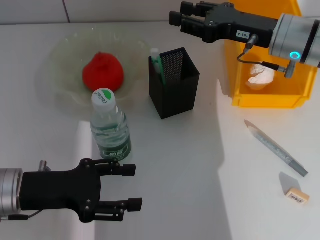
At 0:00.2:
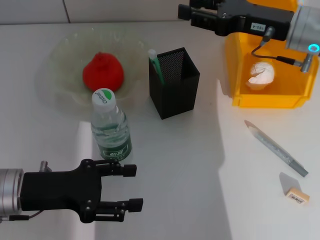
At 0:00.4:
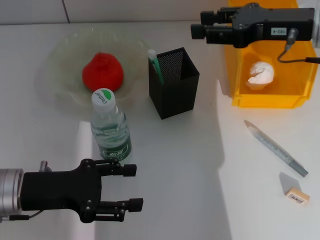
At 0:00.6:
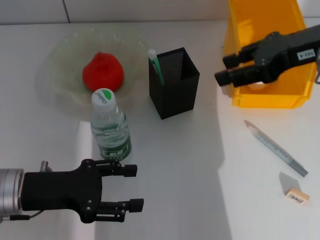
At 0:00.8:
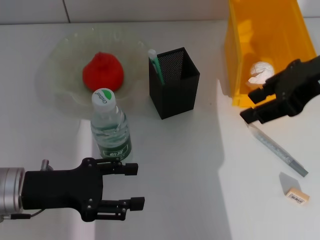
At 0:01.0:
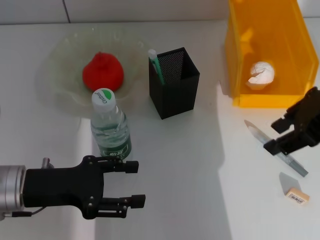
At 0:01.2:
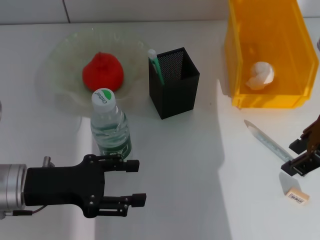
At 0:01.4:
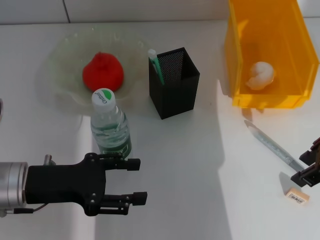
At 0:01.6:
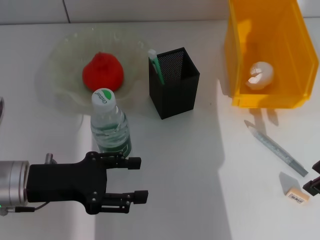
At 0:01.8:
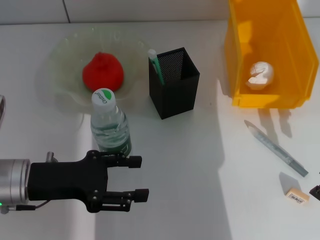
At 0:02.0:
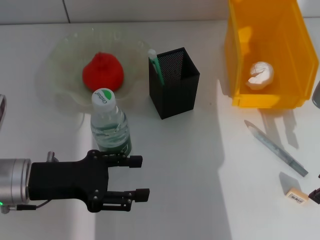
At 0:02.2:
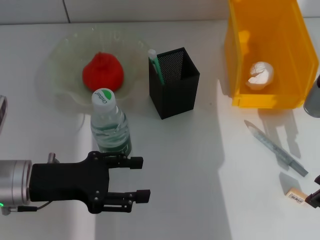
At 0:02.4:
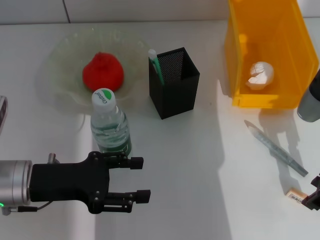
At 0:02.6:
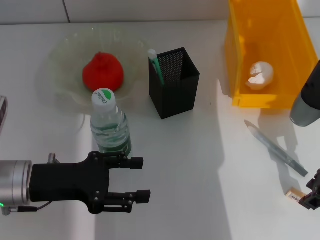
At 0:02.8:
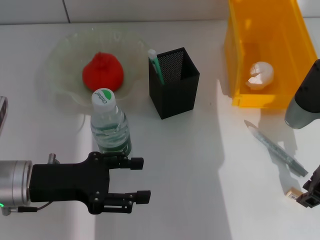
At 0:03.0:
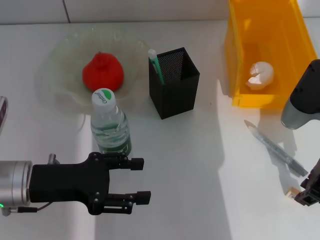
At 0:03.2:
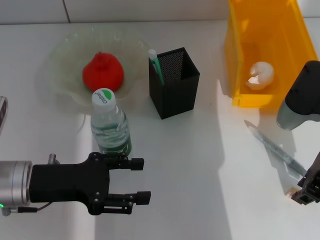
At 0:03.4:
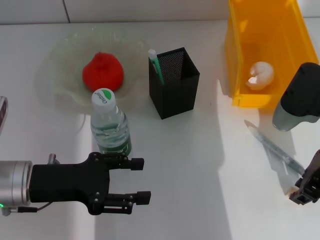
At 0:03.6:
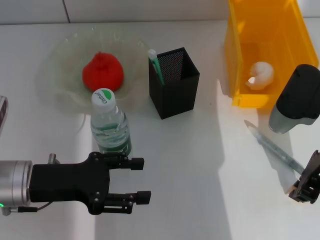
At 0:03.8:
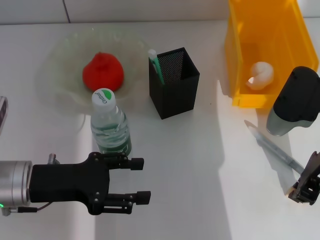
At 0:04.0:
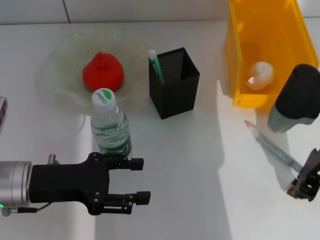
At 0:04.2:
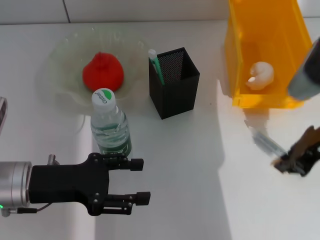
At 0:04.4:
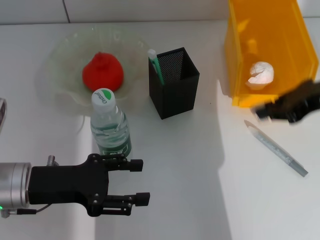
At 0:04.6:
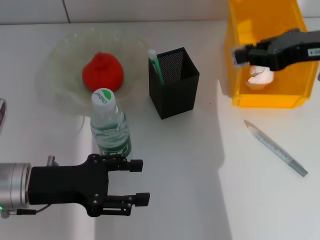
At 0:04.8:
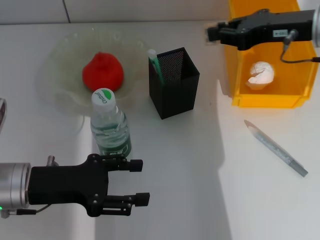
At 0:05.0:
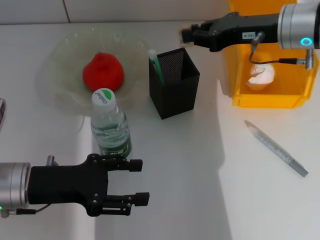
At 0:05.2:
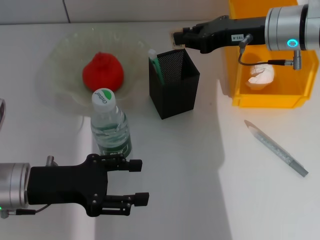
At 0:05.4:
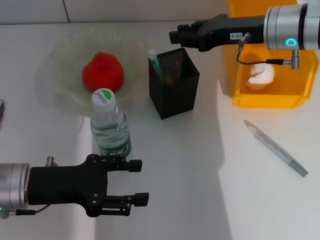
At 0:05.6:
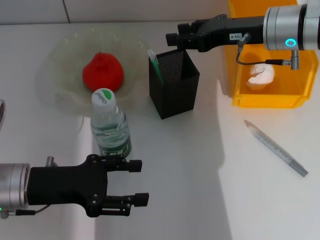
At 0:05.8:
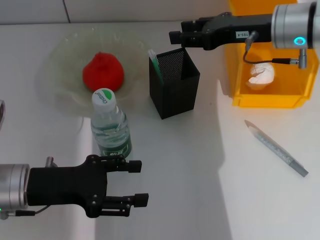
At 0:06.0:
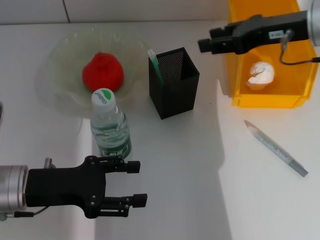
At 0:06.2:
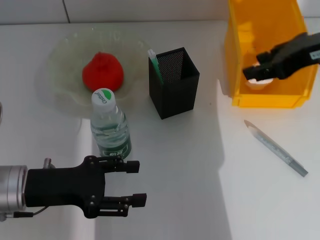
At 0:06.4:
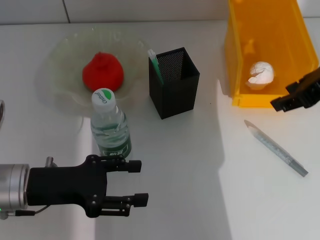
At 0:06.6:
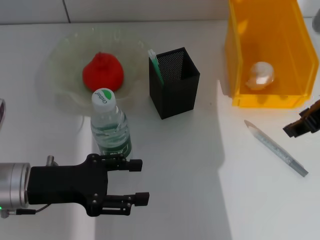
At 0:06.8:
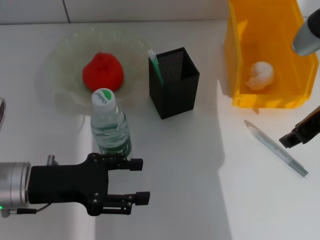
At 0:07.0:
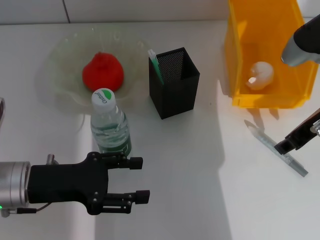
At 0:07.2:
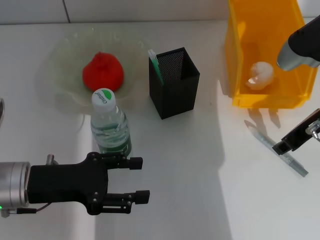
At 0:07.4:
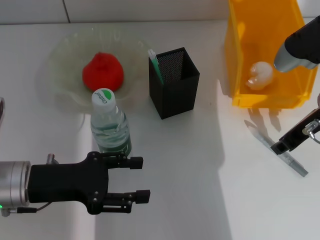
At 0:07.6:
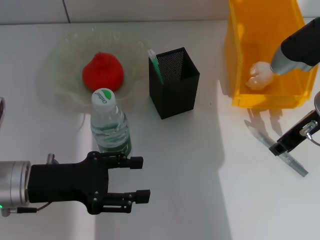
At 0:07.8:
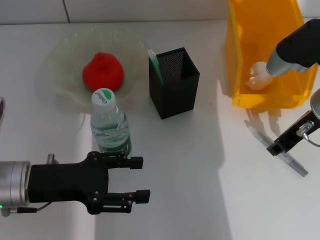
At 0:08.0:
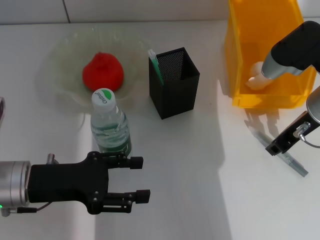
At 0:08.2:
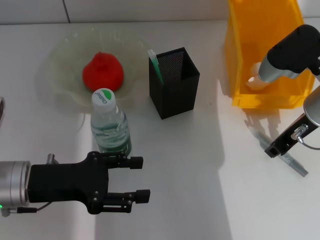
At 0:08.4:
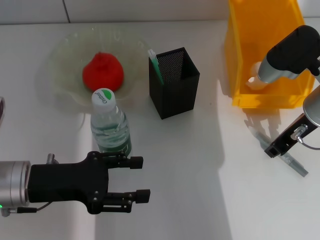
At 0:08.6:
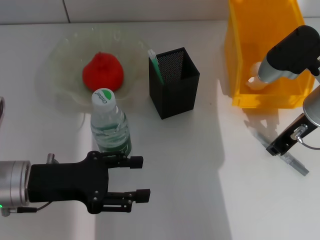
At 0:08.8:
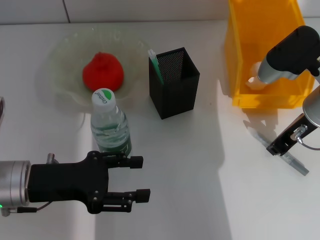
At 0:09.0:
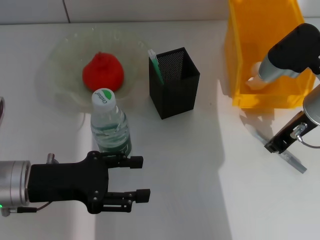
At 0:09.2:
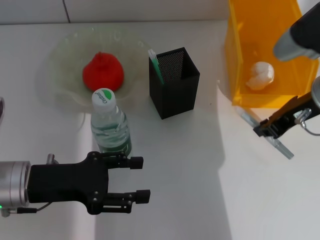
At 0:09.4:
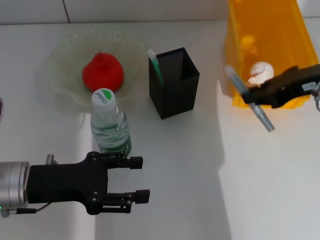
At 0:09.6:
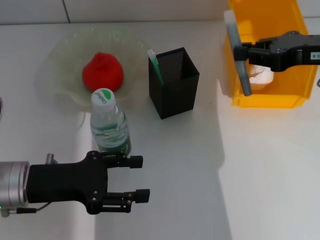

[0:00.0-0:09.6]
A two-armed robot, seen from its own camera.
Step, 0:00.4 to 0:03.6: Grab the eraser with the right hand.
Step, 0:03.8 to 0:05.6: Put the eraser into the pen holder with the right hand.
Step, 0:05.8 to 0:08.6: Grab the gray glue with the right hand.
0:00.0 to 0:01.6: The right gripper shifts some 15 cm backward, upward and to the right, and opens up.
0:01.6 to 0:03.2: The right gripper travels downward by about 5 cm.
0:03.2 to 0:04.8: The right gripper is displaced forward and upward by about 10 cm.
0:04.8 to 0:06.4: The right gripper goes roughly 5 cm backward, and opens up.
0:06.4 to 0:08.0: The right gripper heads downward, covering roughly 10 cm.
0:08.0 to 0:09.6: The right gripper travels upward by approximately 5 cm.

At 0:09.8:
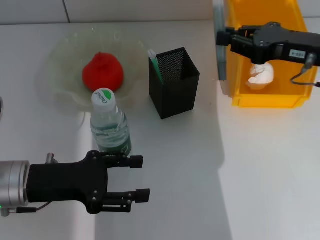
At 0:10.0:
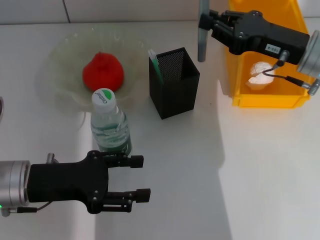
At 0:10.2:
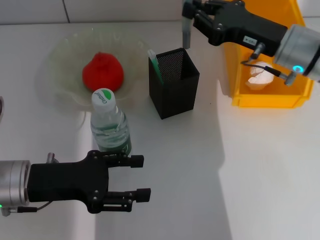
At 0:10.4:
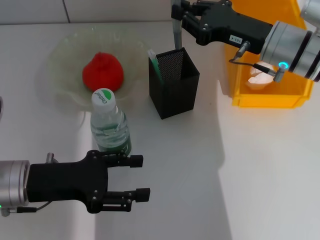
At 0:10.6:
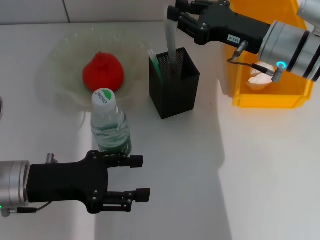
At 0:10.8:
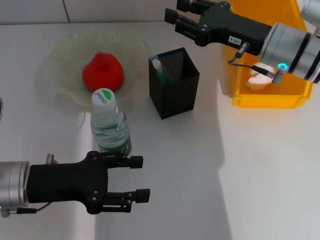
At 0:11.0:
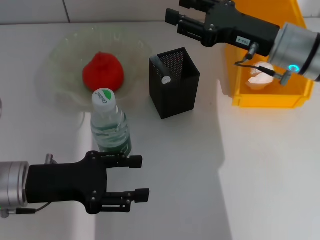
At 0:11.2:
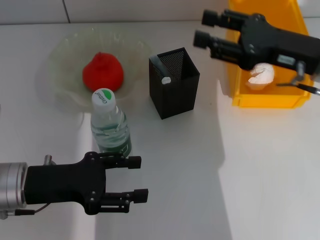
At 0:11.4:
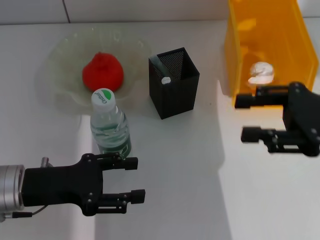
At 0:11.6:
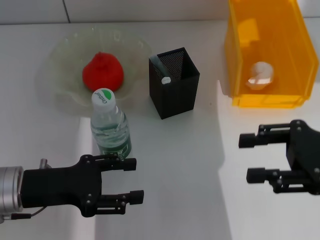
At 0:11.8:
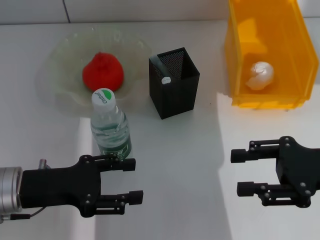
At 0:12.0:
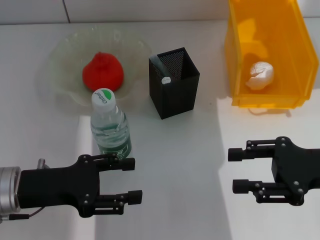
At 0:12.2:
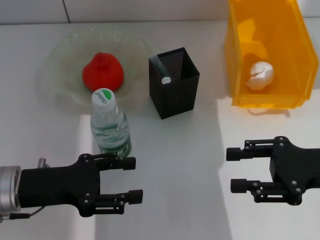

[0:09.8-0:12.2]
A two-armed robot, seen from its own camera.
Step, 0:09.8 to 0:11.0: Place the gray glue into the pen holder with the right hand.
0:09.8 to 0:11.0: The right gripper heads to the left, covering roughly 5 cm, and opens up.
0:11.0 to 0:12.2: The right gripper moves backward and to the right, about 15 cm.

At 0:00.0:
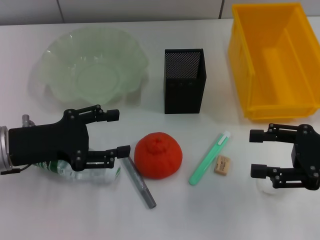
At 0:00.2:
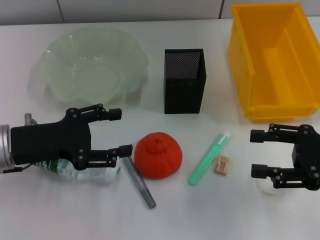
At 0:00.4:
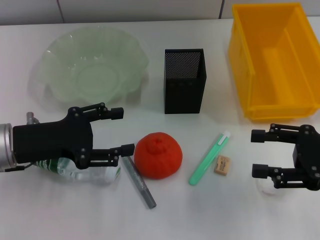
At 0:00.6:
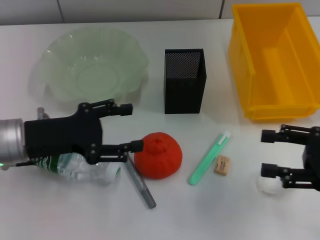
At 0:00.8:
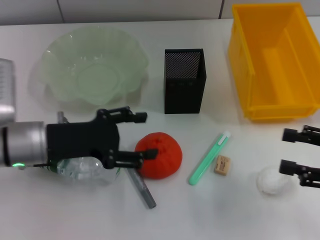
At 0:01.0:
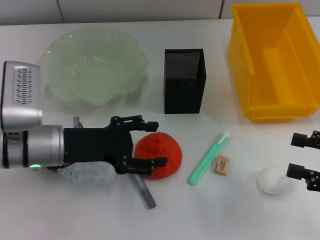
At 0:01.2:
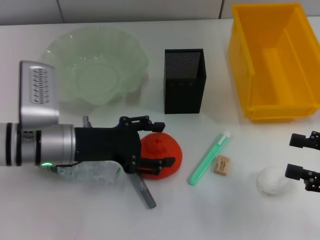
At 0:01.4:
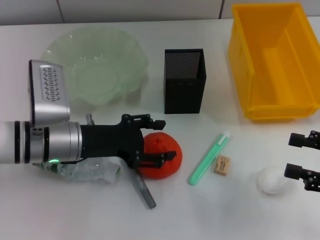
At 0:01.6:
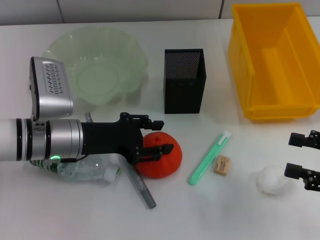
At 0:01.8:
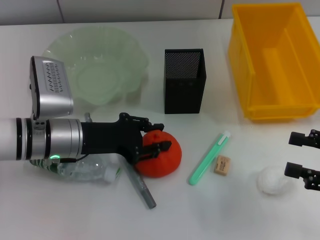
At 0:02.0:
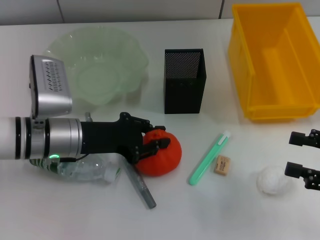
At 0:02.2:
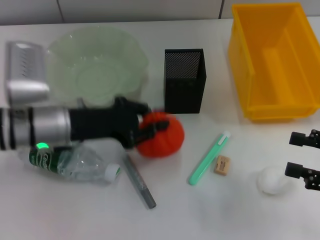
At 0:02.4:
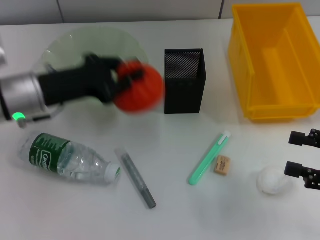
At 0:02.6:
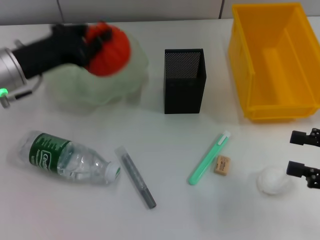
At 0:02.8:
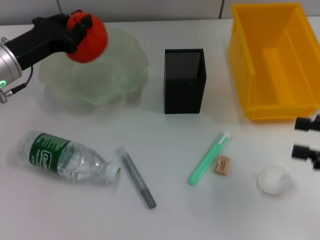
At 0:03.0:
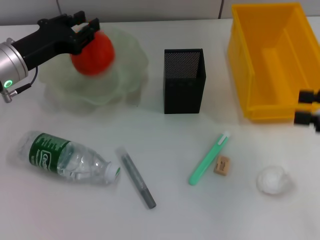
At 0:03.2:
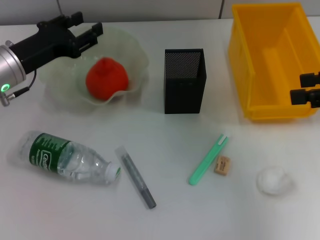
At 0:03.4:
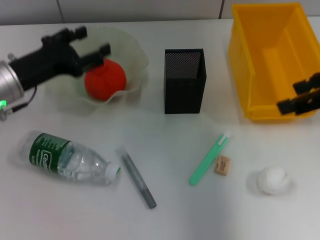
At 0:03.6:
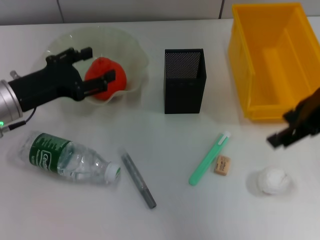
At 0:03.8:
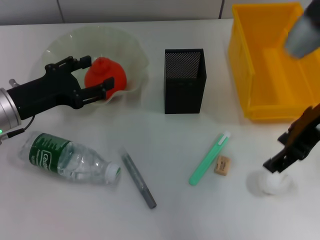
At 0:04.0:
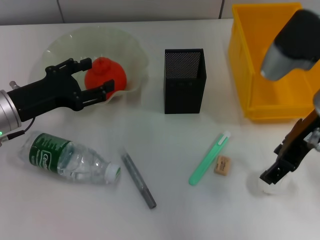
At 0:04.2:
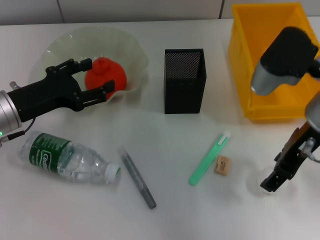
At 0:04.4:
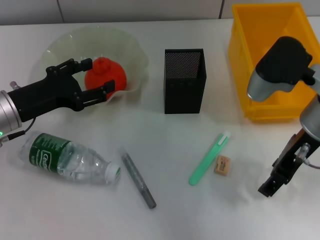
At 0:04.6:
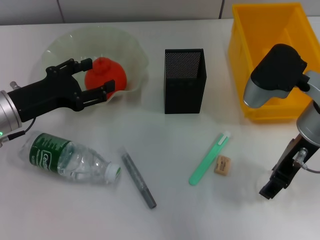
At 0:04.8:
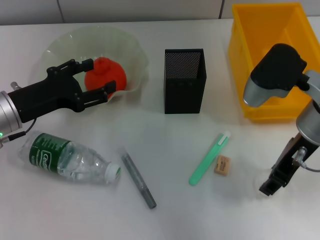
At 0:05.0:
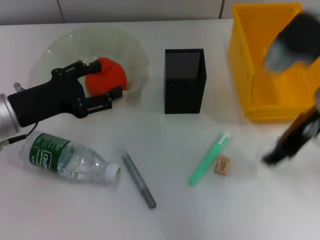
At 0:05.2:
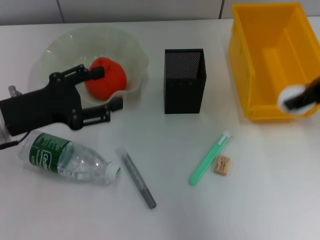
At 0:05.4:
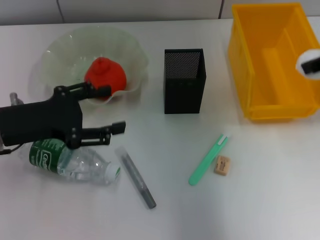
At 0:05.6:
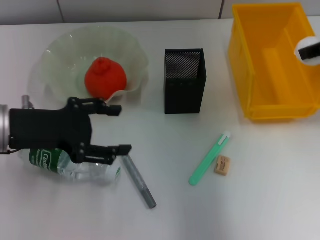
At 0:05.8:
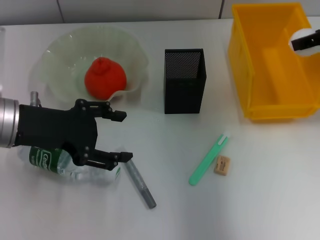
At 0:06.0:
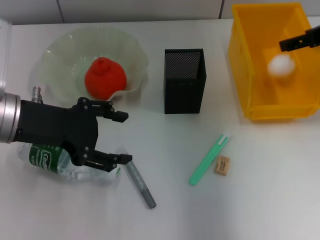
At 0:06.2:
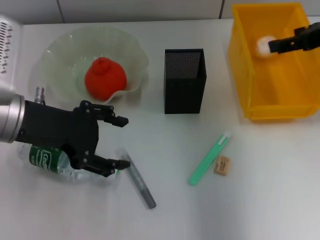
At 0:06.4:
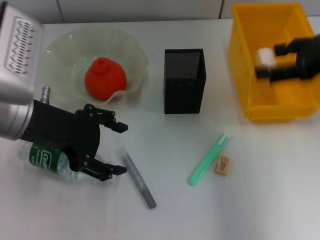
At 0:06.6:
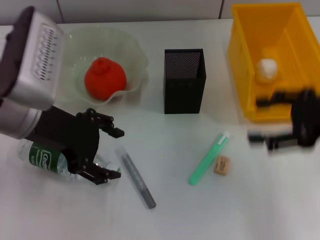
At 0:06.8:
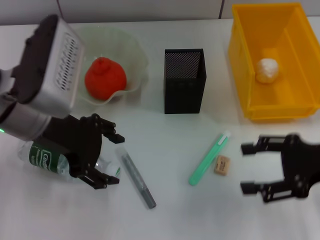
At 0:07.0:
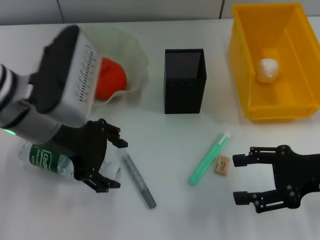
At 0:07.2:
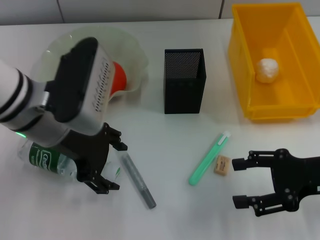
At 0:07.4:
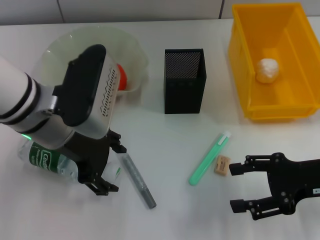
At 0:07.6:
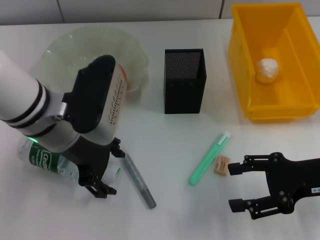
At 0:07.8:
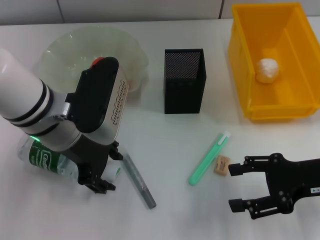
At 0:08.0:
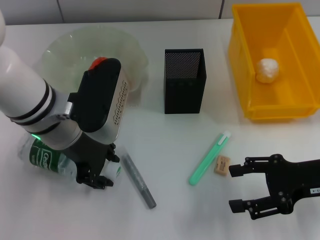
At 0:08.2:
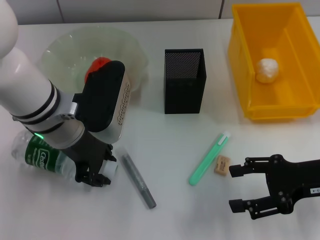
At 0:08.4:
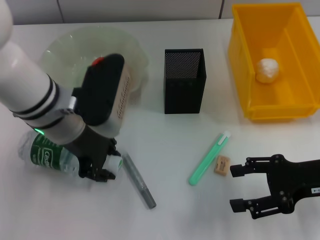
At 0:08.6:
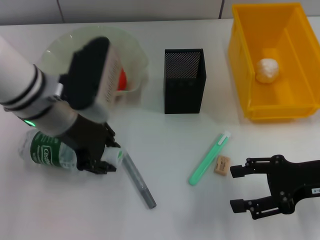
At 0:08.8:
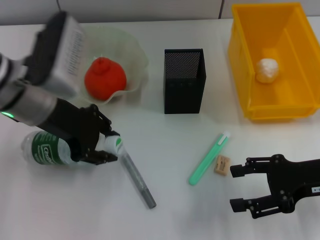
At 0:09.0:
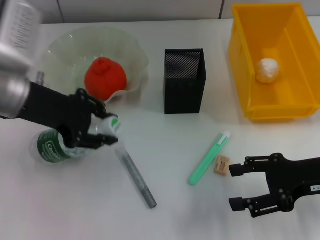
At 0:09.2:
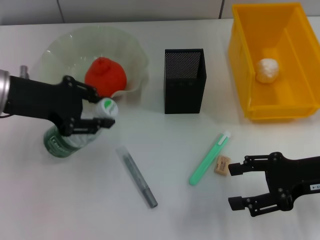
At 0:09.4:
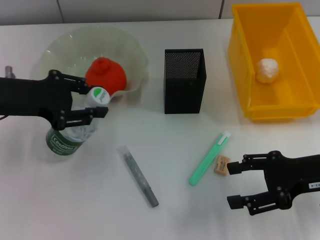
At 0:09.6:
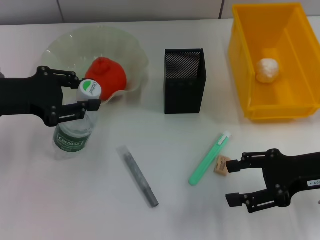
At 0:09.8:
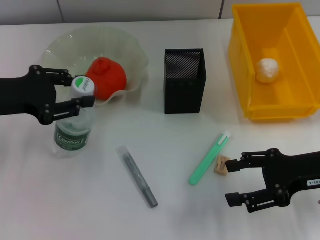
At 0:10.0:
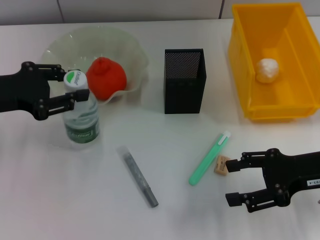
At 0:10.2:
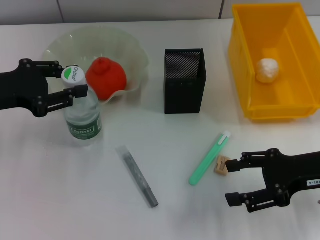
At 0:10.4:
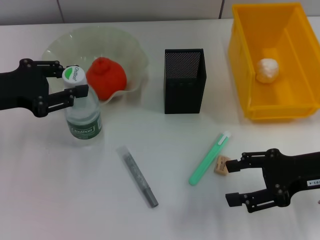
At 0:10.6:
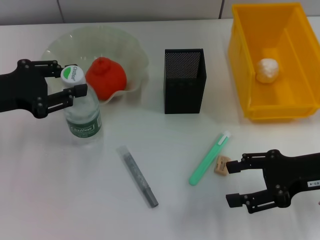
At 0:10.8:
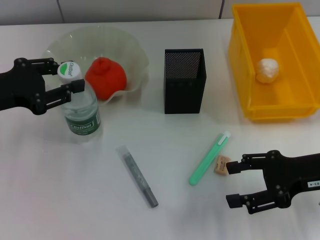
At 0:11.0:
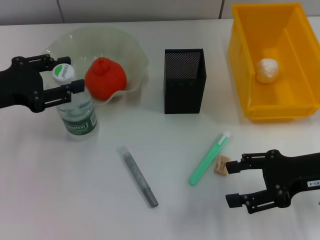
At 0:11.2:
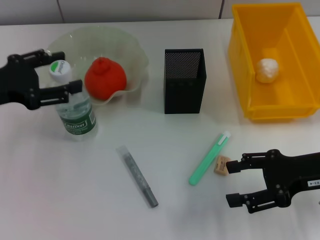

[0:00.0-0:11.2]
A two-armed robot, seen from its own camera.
Step, 0:00.0 to 0:01.8: Grab the orange with the left hand.
Step, 0:02.0 to 0:03.2: Place the orange into the fruit bowl with the left hand.
Step, 0:03.6 to 0:04.6: Grab the paper ball with the right hand.
Step, 0:04.8 to 0:06.2: Place the paper ball into the trash can with the right hand.
Step, 0:06.4 to 0:08.2: Grab the water bottle with the left hand.
0:00.0 to 0:01.6: The right gripper ends up some 5 cm from where it was. The left gripper goes about 10 cm to the right.
0:01.6 to 0:03.2: The left gripper heads to the left and forward, covering some 10 cm, and closes its fingers. Meanwhile the right gripper is displaced upward and forward by approximately 15 cm.
0:03.2 to 0:04.8: The left gripper moves backward, some 5 cm, and opens up. Meanwhile the right gripper moves to the left and downward, approximately 15 cm.
0:04.8 to 0:06.4: The left gripper goes some 10 cm upward and to the right. The right gripper is displaced to the right and upward by roughly 10 cm.
0:06.4 to 0:08.0: The left gripper goes about 5 cm to the right, while the right gripper is displaced downward and backward by some 15 cm.
0:08.0 to 0:09.6: The left gripper heads to the left, covering roughly 15 cm.
0:09.6 to 0:11.2: There are only small adjustments of the grippers.
